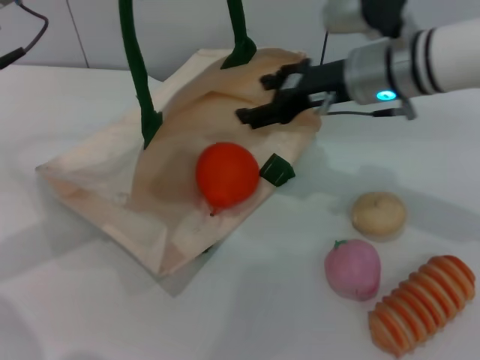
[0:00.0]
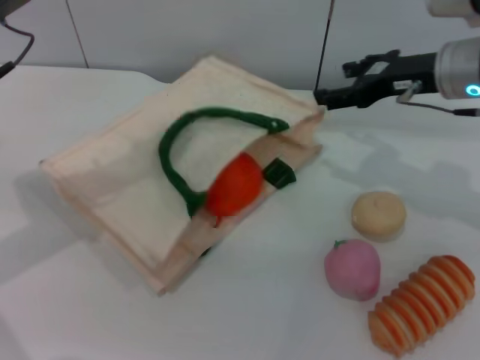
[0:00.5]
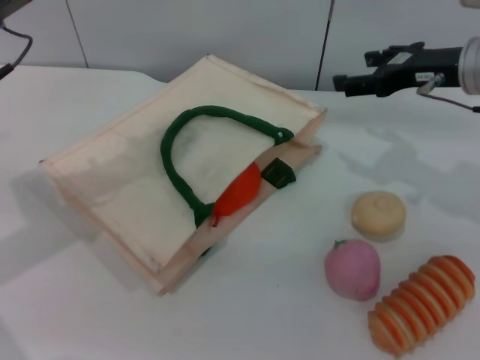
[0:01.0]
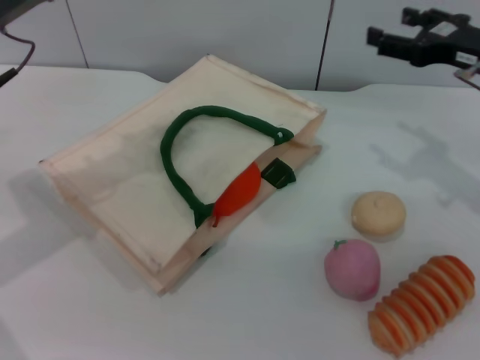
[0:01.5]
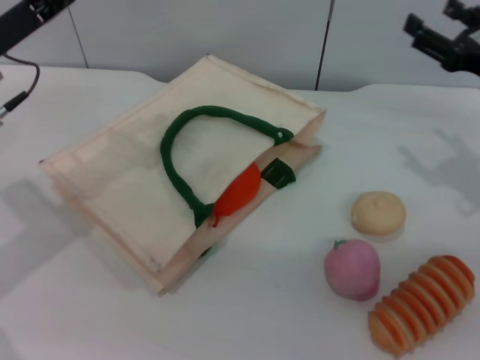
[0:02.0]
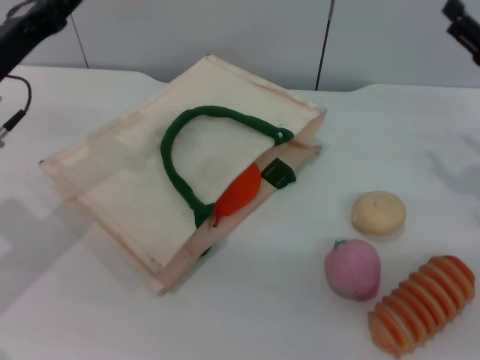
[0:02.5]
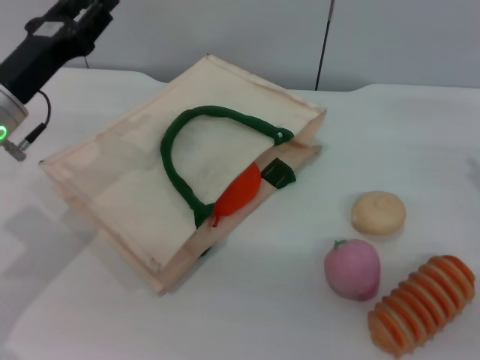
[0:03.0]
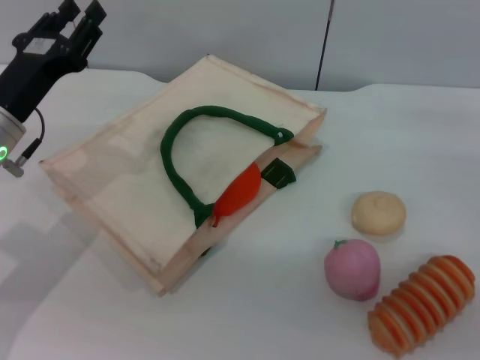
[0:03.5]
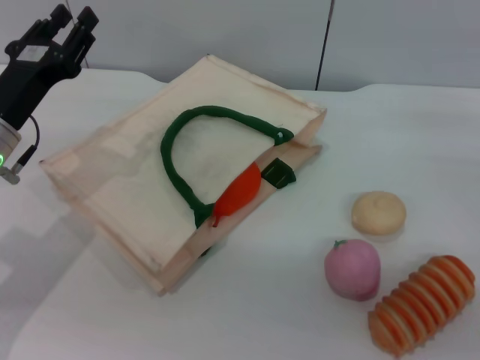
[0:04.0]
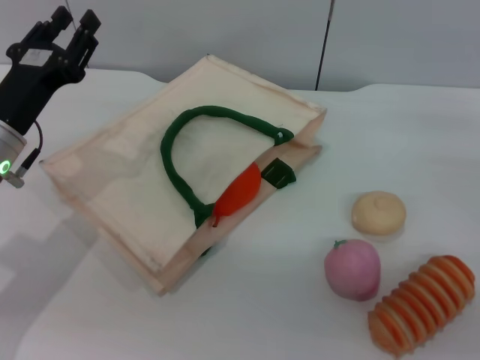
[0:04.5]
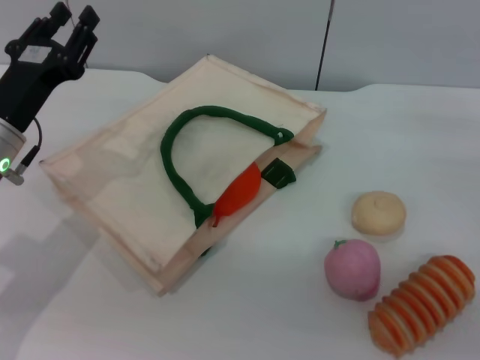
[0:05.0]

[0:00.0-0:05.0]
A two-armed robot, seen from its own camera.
Task of the whole recording: pick up the orange from the table and place it in the white handbag.
Step, 0:00.5 to 0:03.0: Lower the woven bag with the left gripper to close it.
0:00.0 to 0:02.5: The left gripper travels downward by roughly 10 cm, and opens up. The right gripper shifts roughly 20 cm to the right and backward.
0:02.5 to 0:05.0: The right gripper ends up some 5 cm from where it was. The left gripper shifts by approximately 5 cm.
